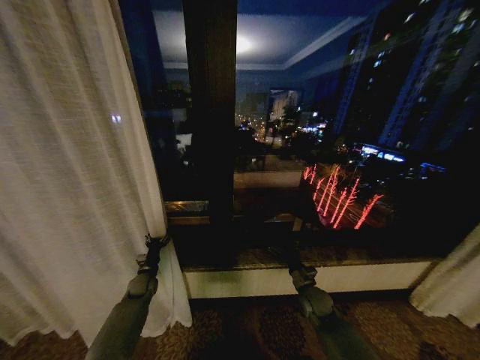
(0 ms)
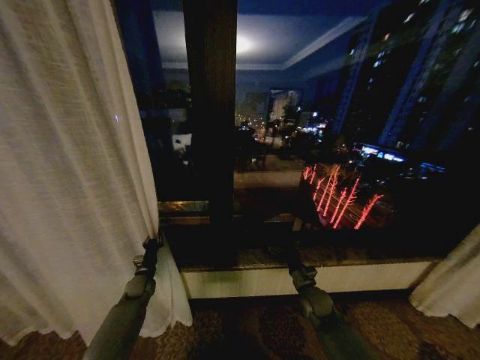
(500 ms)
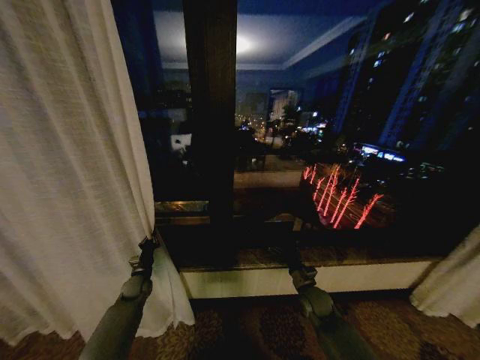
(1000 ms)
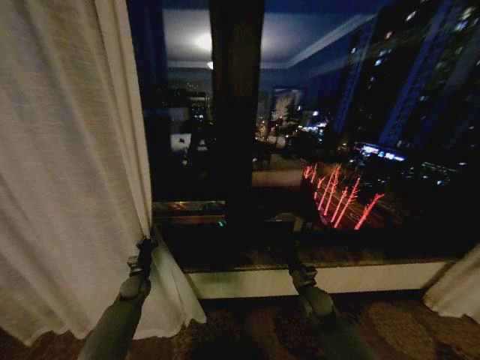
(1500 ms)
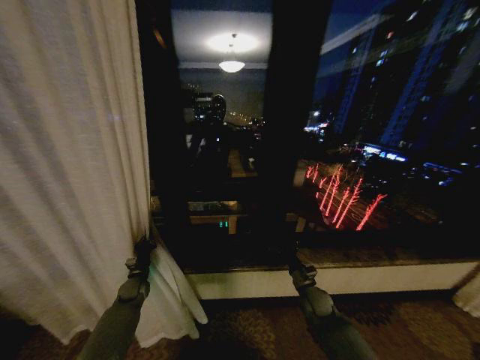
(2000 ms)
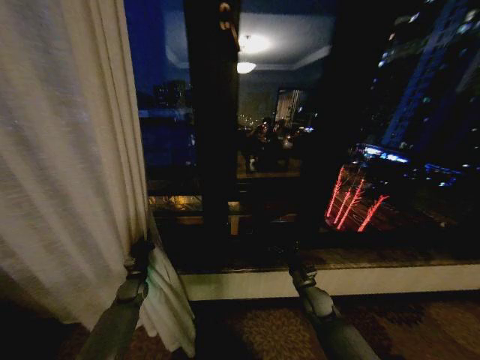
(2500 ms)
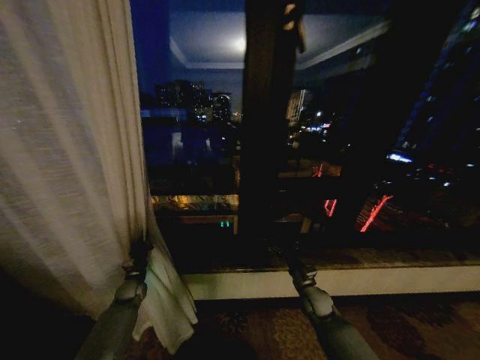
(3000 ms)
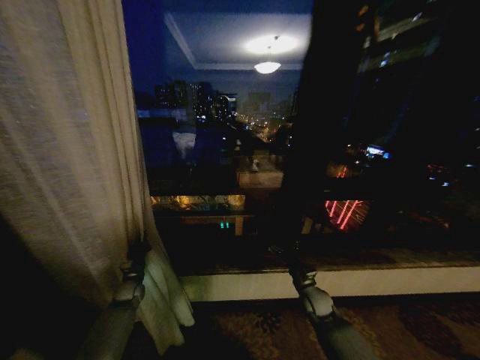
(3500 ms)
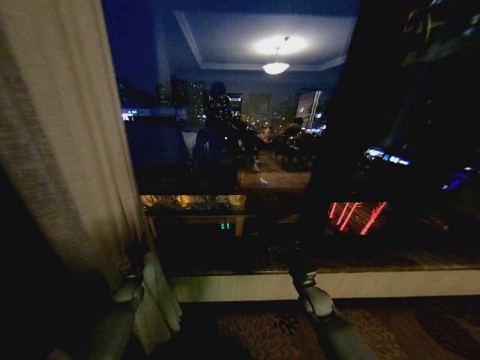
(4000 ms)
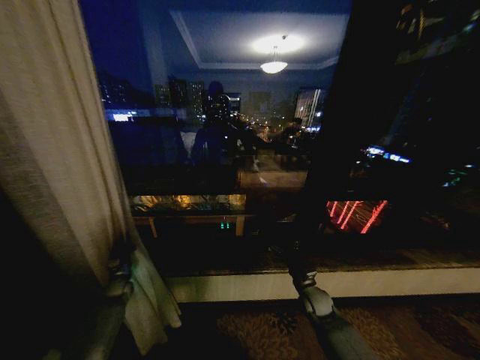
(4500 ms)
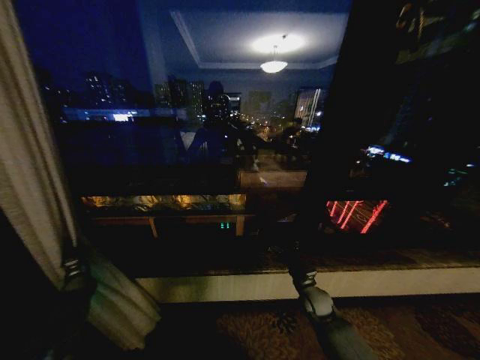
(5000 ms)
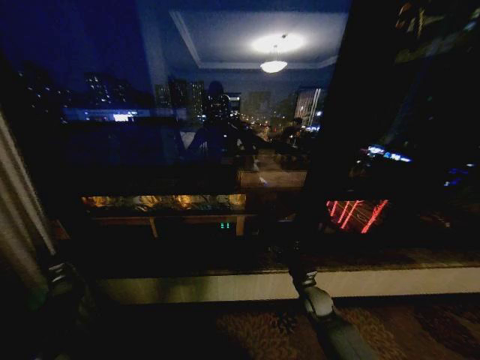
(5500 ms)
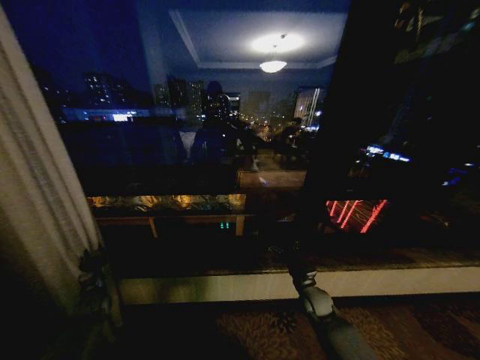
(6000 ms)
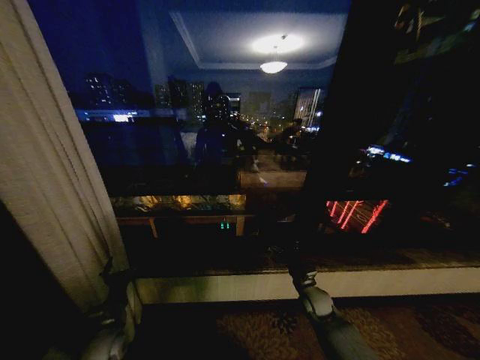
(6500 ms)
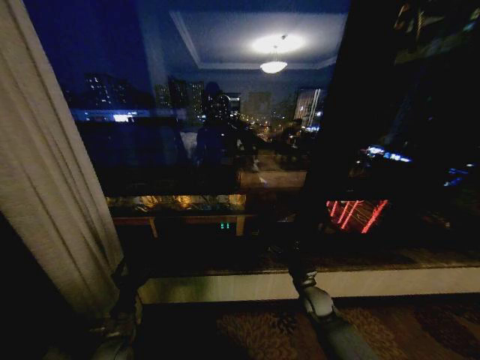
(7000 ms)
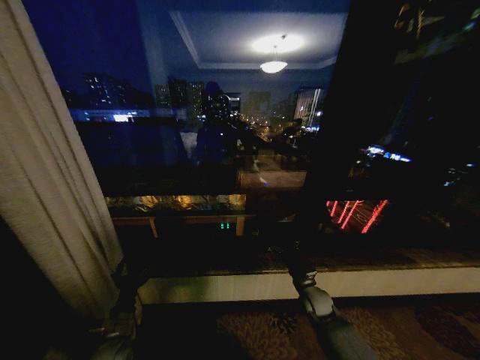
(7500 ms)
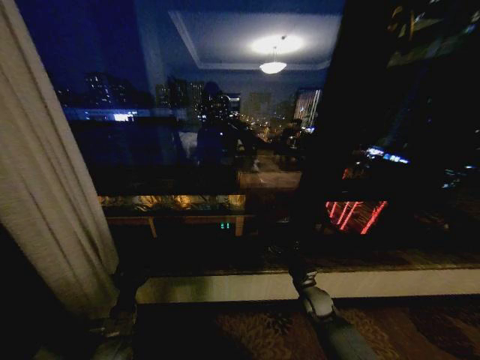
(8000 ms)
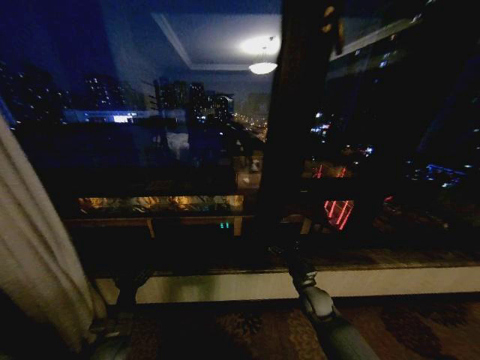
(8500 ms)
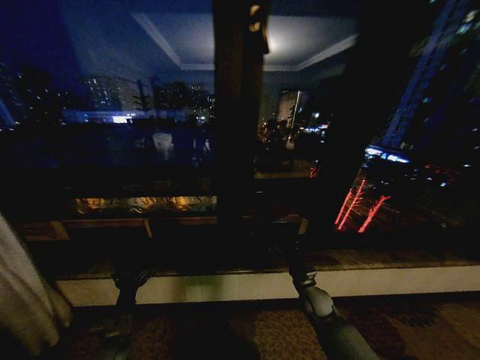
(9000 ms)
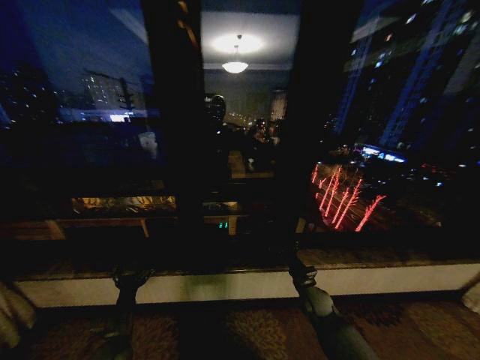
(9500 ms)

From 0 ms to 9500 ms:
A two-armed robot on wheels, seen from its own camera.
Task of the whole recording: Open the curtains by pulling them apart, changing their state from closed to fully open.
From 0 ms to 2000 ms: The left gripper closes its fingers.
From 4000 ms to 5500 ms: The left gripper goes roughly 20 cm to the left.
From 5500 ms to 7500 ms: The left gripper heads to the right and backward, covering about 35 cm, and opens up.

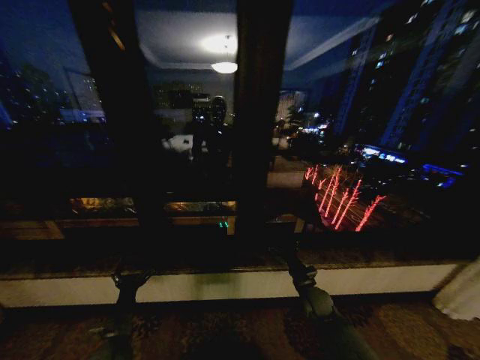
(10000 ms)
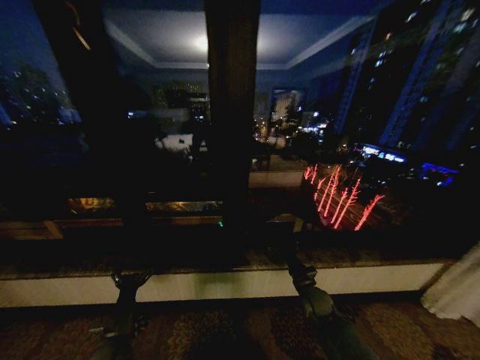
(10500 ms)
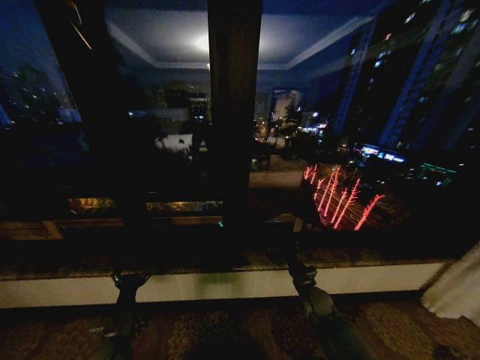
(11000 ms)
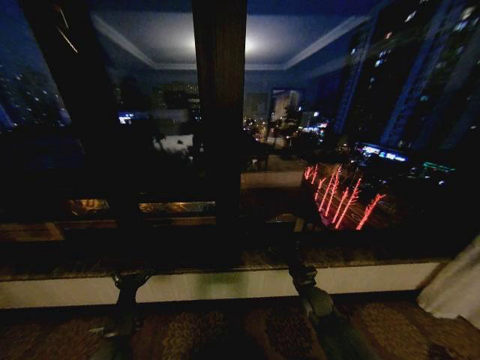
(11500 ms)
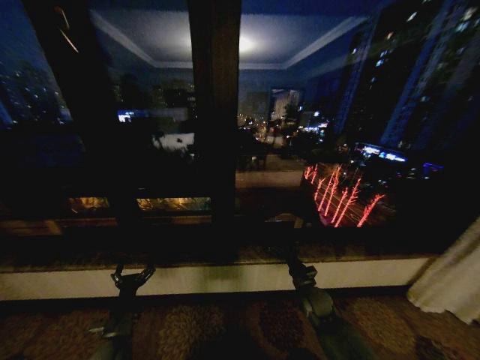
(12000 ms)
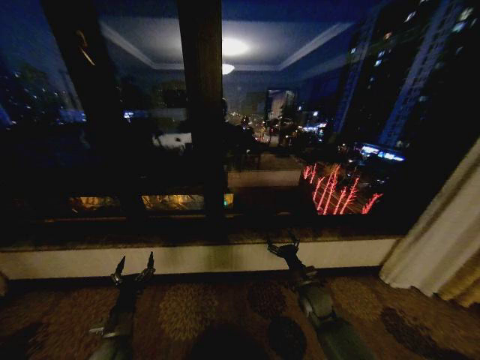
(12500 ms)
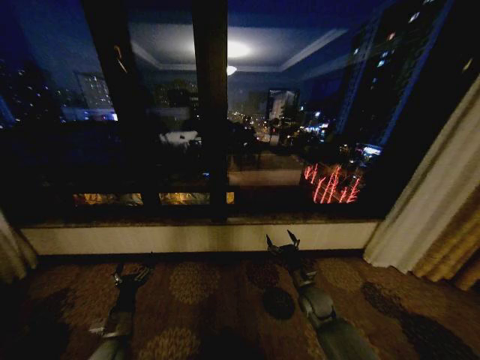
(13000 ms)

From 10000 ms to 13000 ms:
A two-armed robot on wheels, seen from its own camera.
Task of the whole recording: Open the curtains by pulling them apart, changing their state from closed to fully open.
From 10000 ms to 11500 ms: Neither gripper changes place.

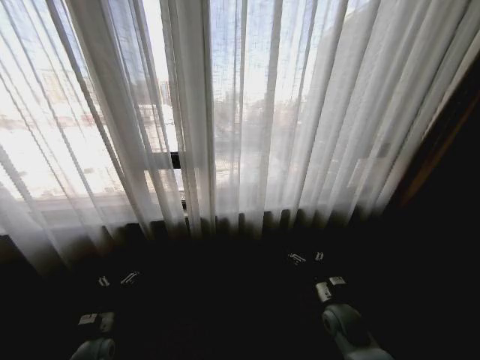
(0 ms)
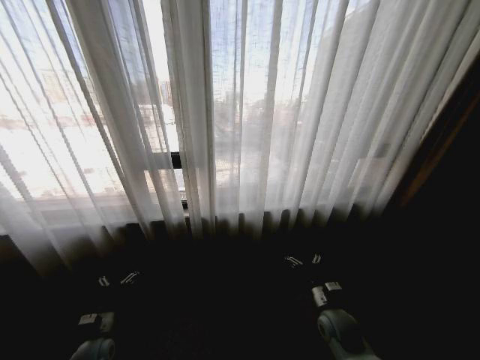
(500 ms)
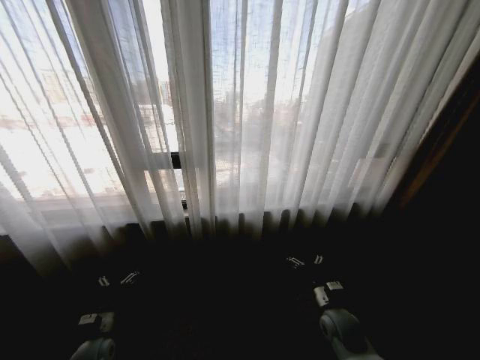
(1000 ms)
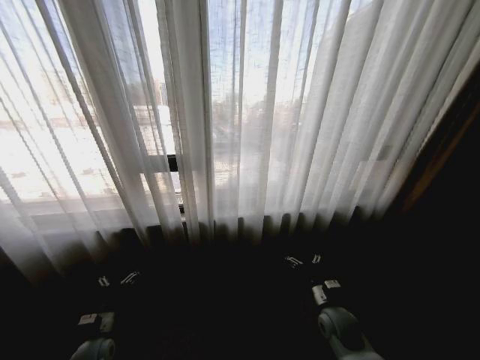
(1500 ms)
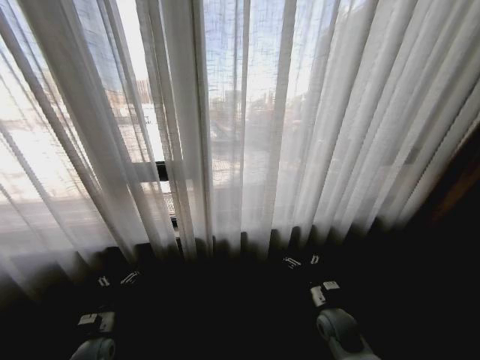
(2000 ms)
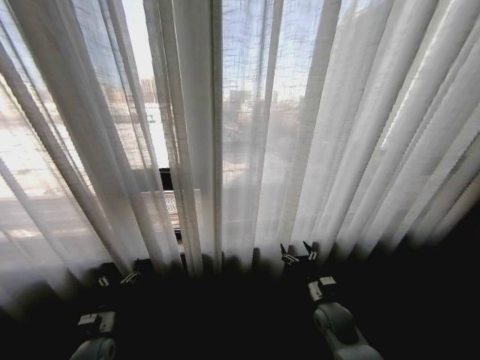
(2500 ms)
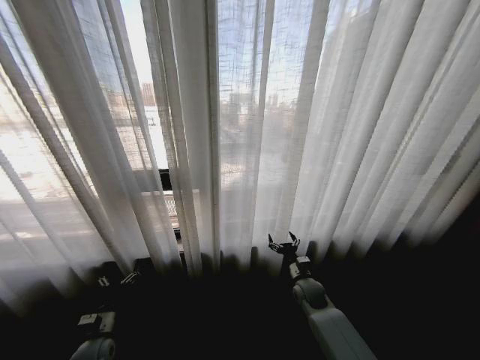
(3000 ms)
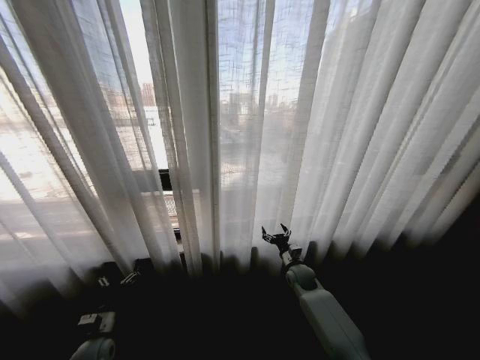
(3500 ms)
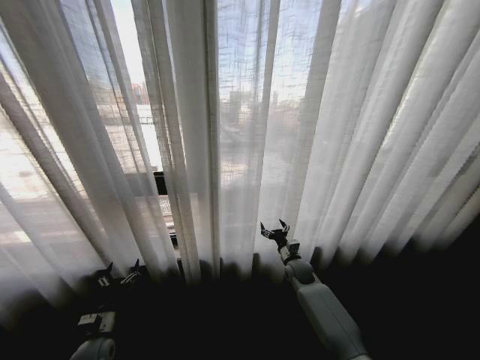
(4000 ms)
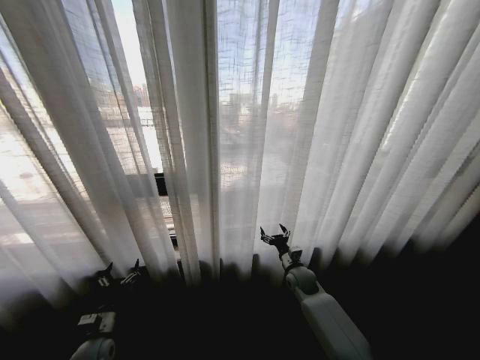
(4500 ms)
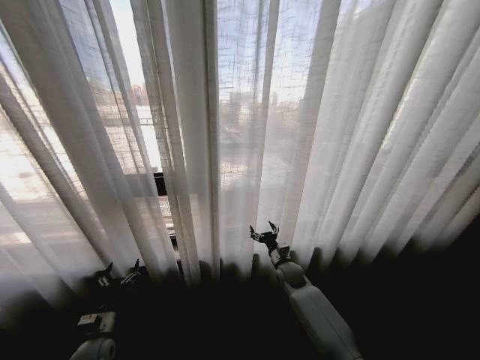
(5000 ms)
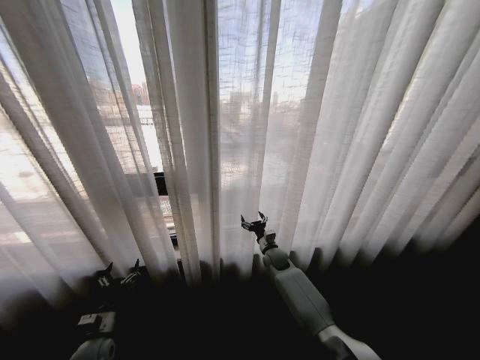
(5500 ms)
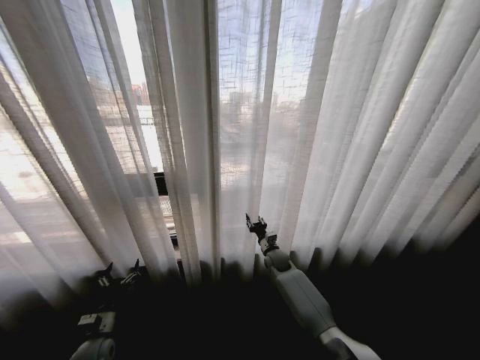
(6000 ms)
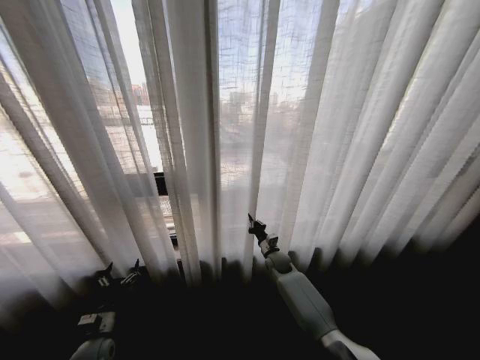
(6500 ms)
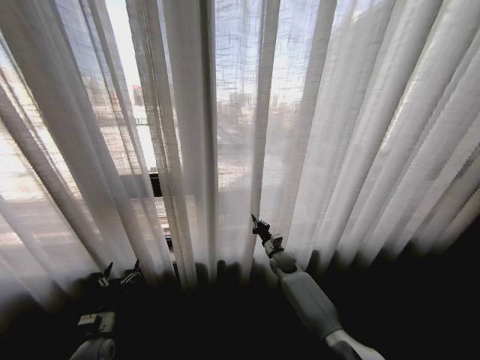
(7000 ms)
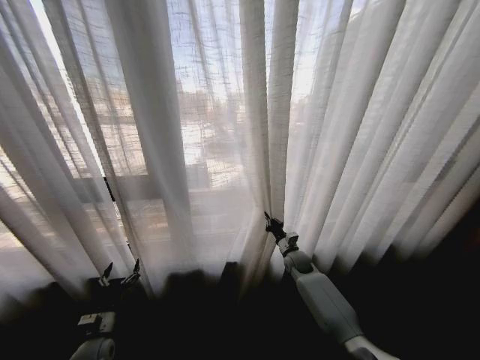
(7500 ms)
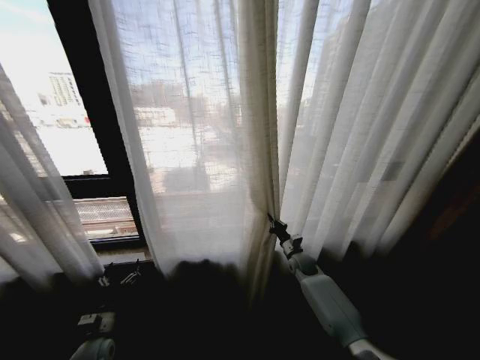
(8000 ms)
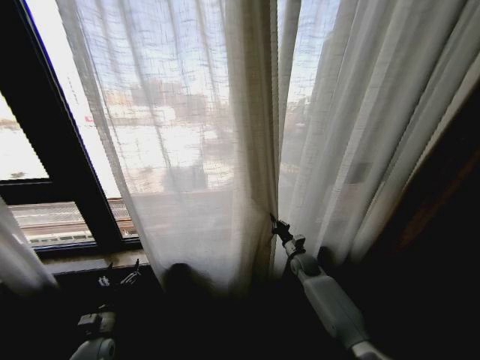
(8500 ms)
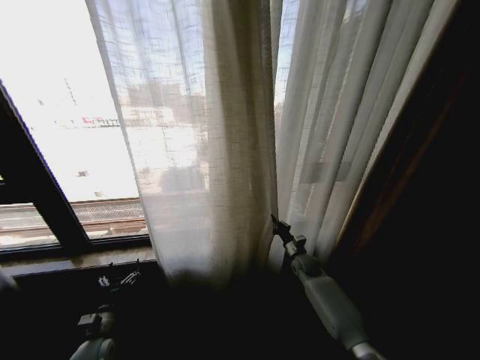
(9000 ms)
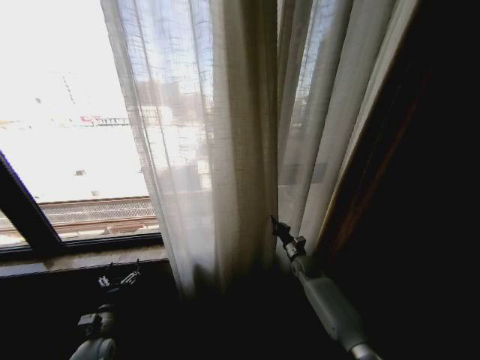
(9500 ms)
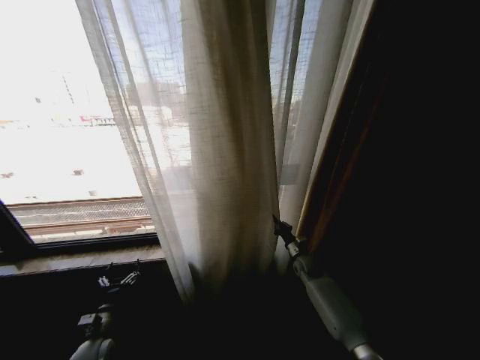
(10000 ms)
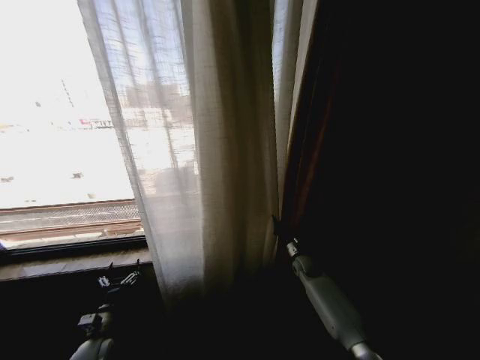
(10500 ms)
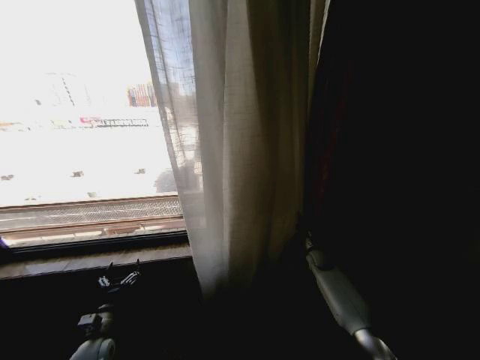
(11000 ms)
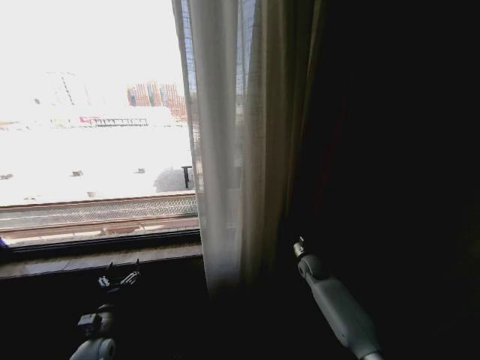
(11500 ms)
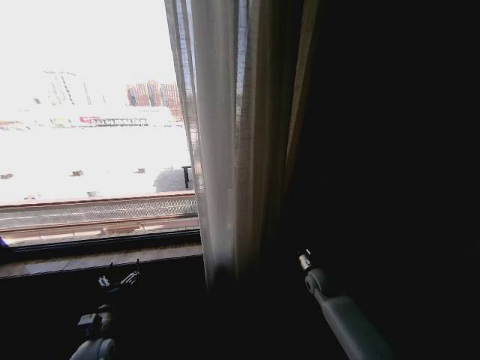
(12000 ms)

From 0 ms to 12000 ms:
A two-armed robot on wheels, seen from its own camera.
Task of the whole recording: Open the curtains by pulling them apart, changing their state from closed to fully open.
From 2000 ms to 4000 ms: The right gripper goes some 15 cm forward.
From 4000 ms to 6000 ms: The right gripper goes about 5 cm to the left, and closes up.
From 6000 ms to 8000 ms: The right gripper goes roughly 10 cm to the right, and closes.
From 10000 ms to 12000 ms: The right gripper shifts roughly 5 cm backward, and opens up.

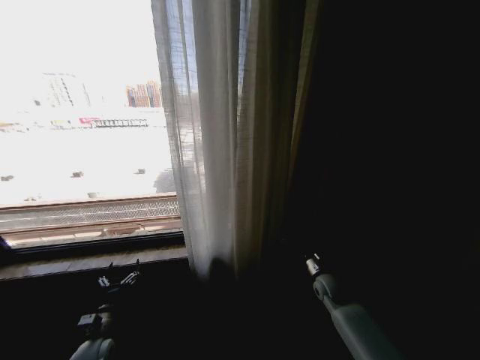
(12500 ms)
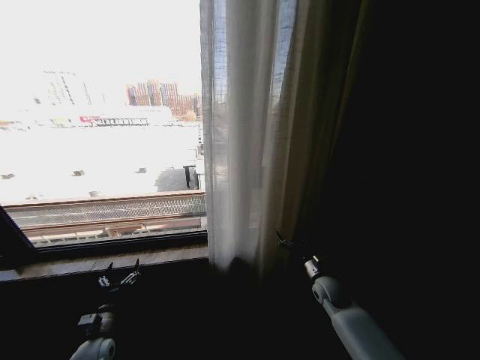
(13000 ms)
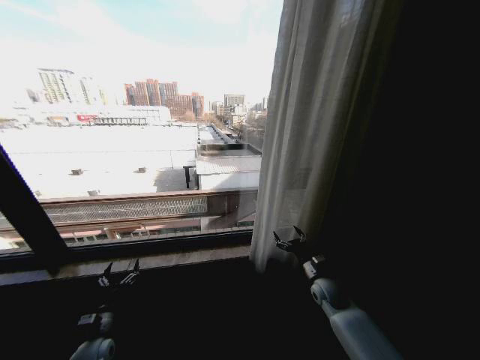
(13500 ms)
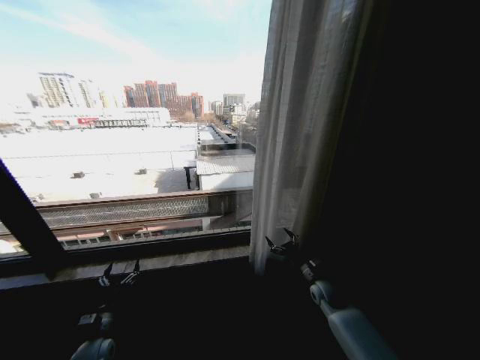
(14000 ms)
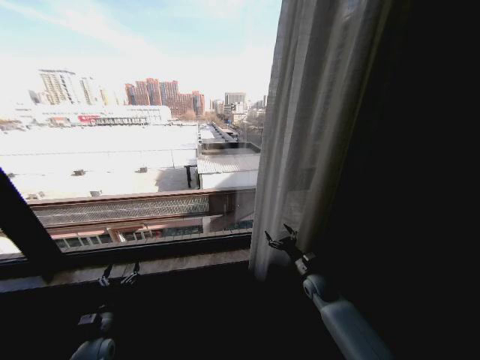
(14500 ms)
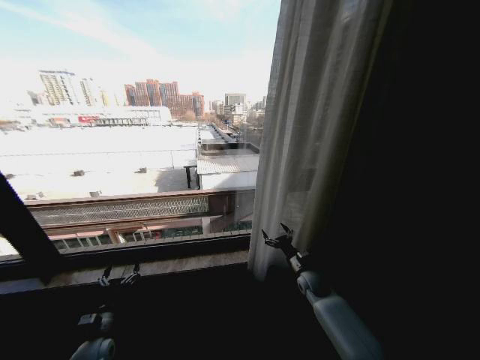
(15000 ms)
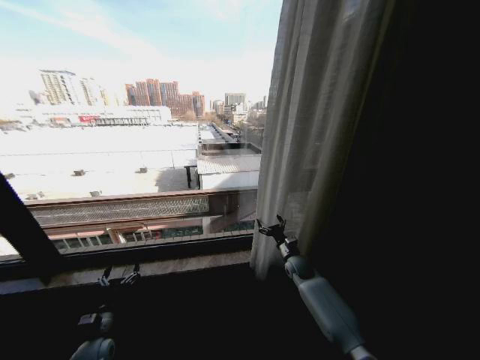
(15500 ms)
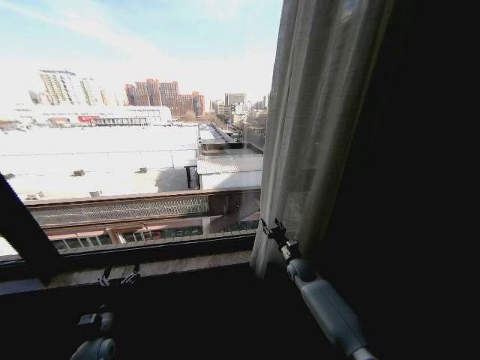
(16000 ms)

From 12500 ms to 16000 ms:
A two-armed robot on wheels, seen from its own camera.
Task of the whole recording: Open the curtains by pulling them apart, changing their state from closed to fully open.
From 14500 ms to 16000 ms: The right gripper travels forward by approximately 5 cm.
